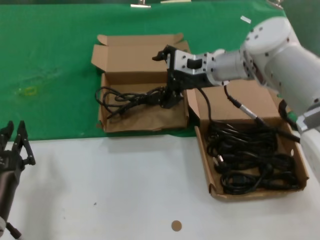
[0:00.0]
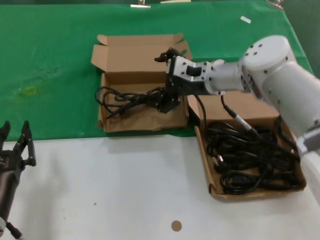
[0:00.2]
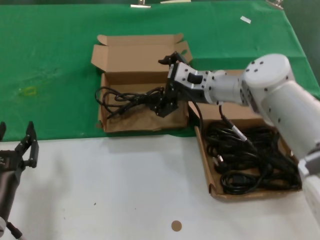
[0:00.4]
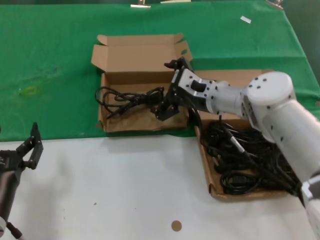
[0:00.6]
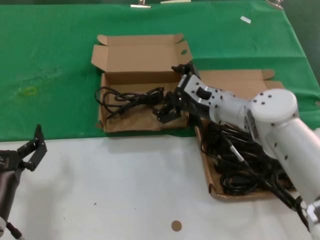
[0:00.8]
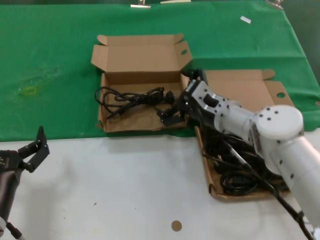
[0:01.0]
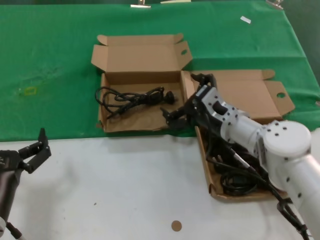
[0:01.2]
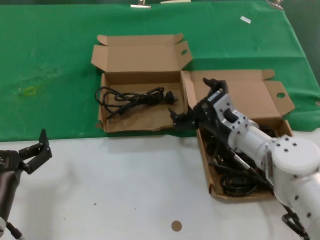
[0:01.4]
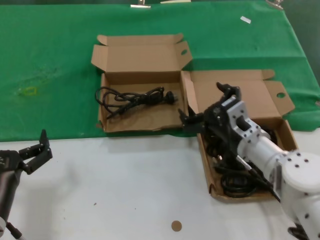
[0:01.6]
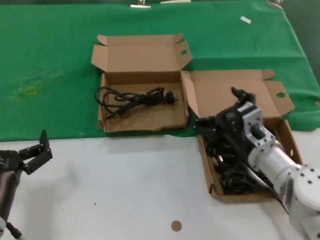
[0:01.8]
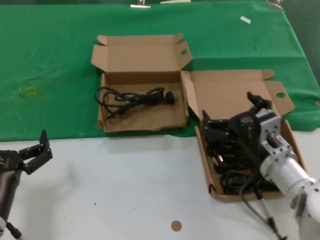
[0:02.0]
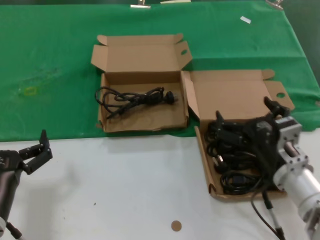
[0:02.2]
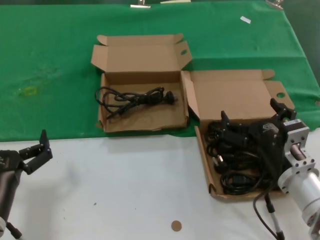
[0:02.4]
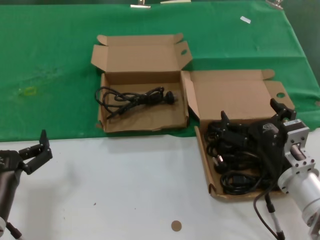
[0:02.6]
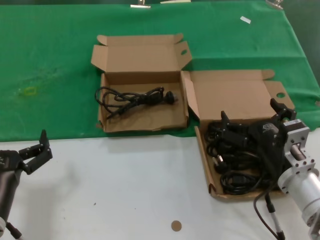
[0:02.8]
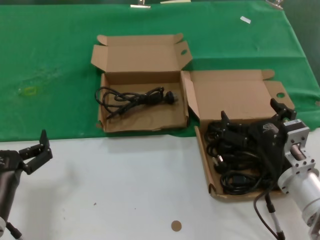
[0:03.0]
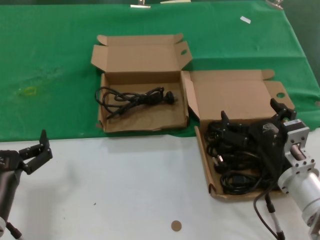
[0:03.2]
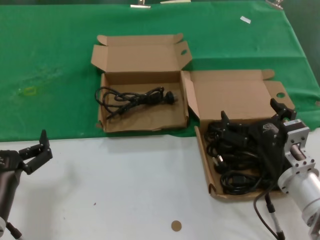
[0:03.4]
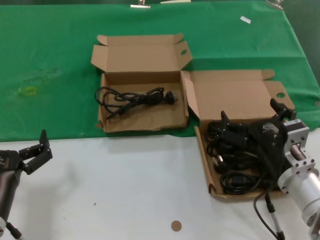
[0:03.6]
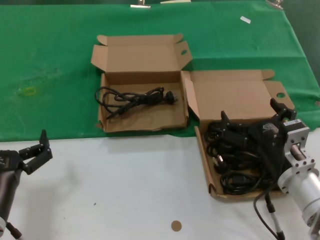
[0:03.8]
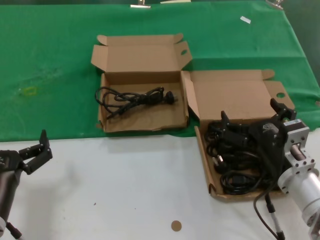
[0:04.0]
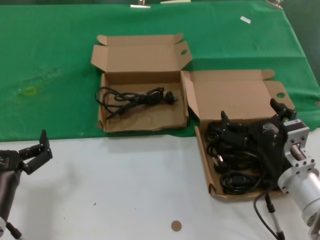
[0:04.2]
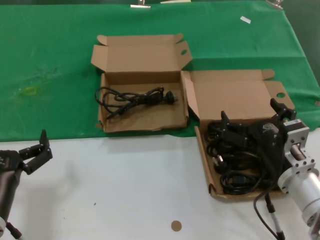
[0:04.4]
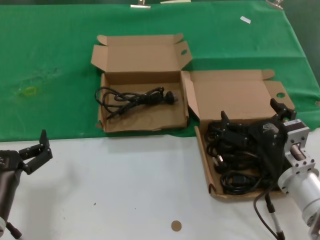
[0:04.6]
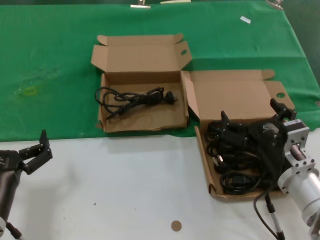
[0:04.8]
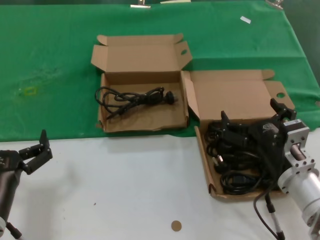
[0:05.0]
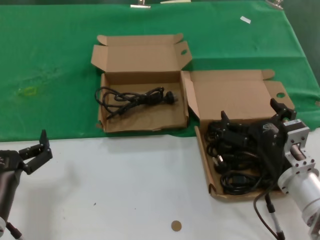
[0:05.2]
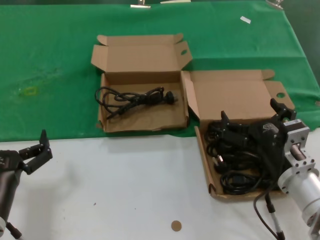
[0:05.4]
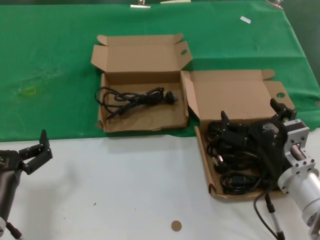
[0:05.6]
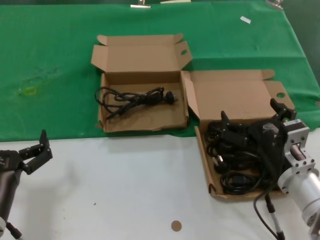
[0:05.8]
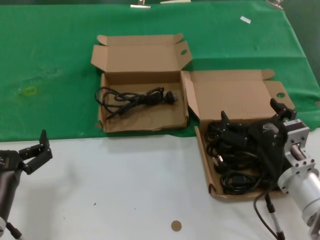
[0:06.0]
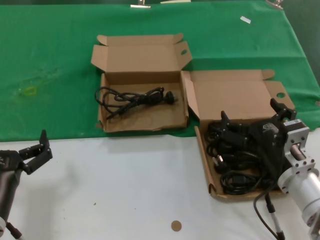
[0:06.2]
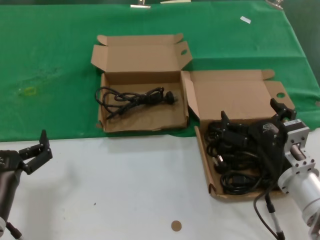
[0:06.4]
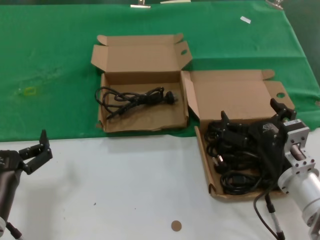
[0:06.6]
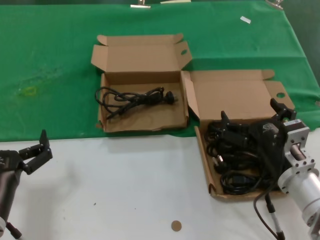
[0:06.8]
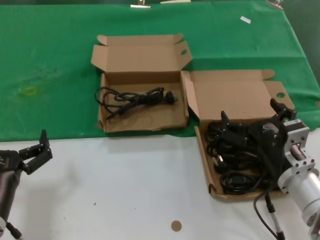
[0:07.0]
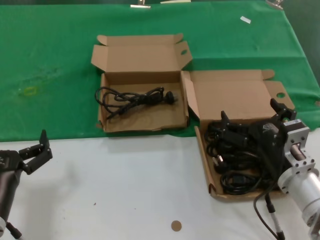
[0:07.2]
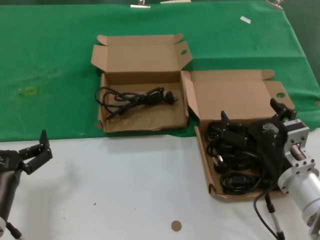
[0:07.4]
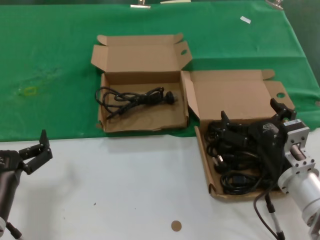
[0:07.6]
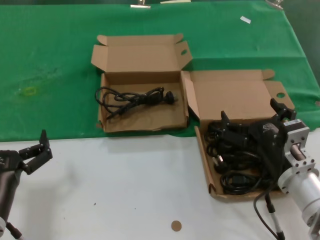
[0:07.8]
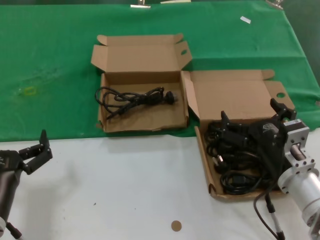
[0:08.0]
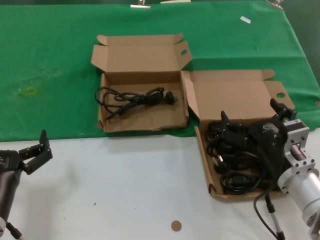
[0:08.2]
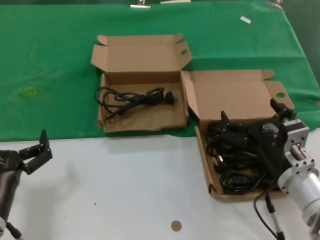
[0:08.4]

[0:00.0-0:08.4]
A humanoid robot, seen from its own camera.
Task of the whole recording: take the parts from the box containing them and put them into an empty box.
0:00.0 to 0:01.4: The right hand shifts roughly 20 cm downward and backward.
0:01.4 to 0:02.8: The right hand is displaced backward by roughly 15 cm.
0:02.8 to 0:08.4: Both hands stay about where they are.

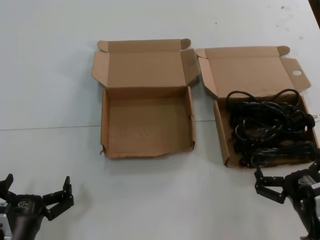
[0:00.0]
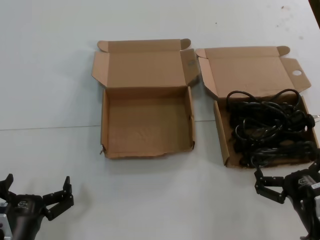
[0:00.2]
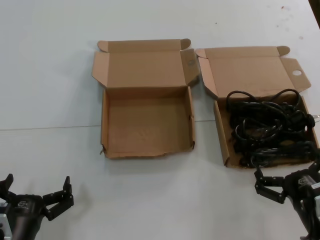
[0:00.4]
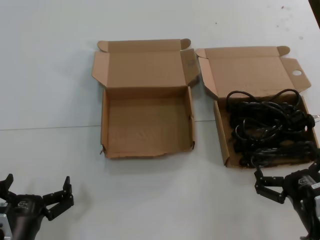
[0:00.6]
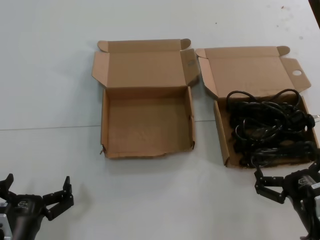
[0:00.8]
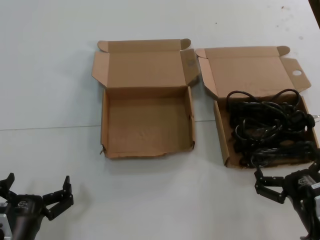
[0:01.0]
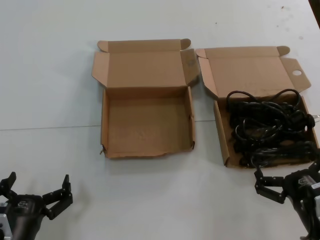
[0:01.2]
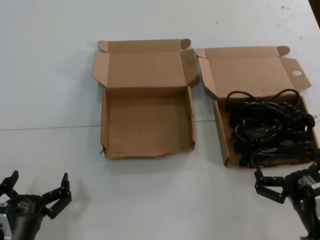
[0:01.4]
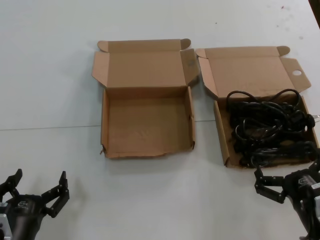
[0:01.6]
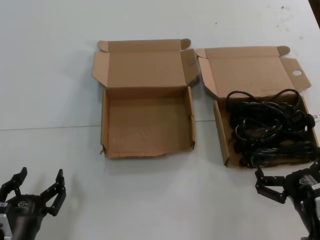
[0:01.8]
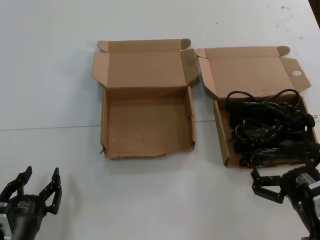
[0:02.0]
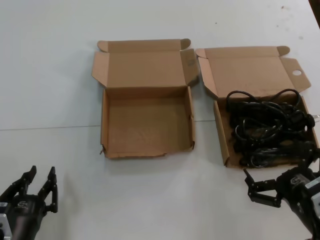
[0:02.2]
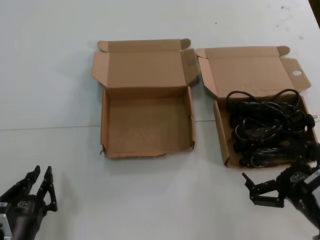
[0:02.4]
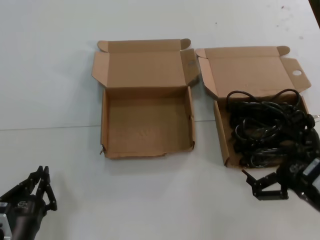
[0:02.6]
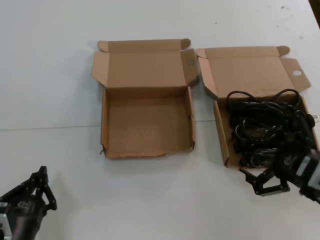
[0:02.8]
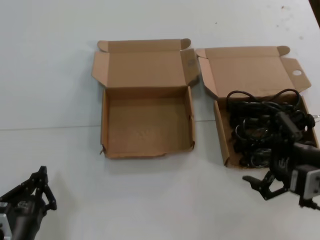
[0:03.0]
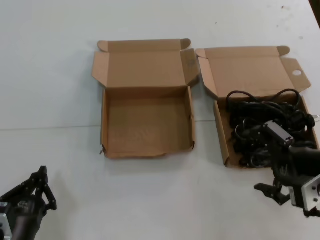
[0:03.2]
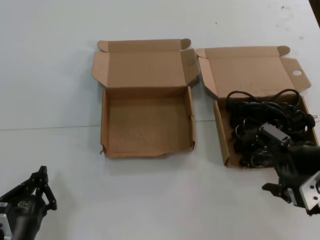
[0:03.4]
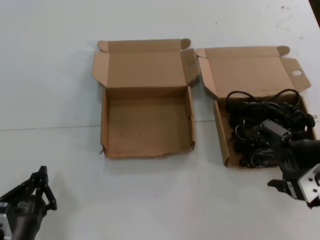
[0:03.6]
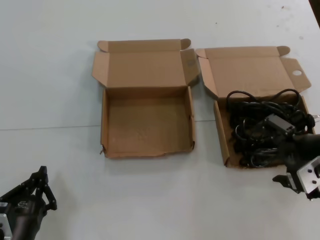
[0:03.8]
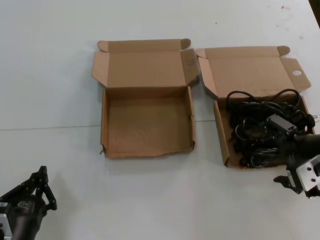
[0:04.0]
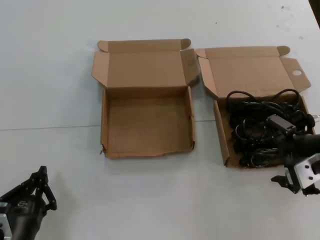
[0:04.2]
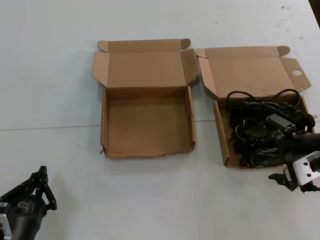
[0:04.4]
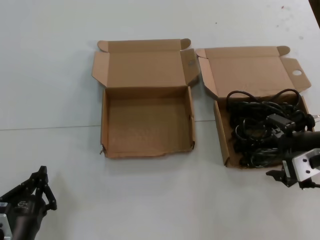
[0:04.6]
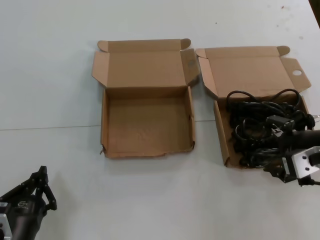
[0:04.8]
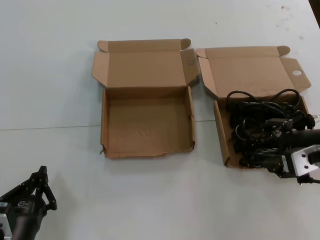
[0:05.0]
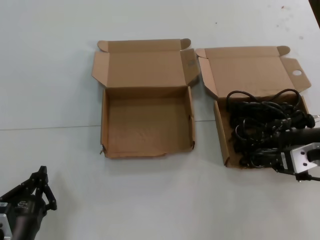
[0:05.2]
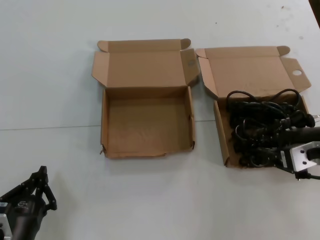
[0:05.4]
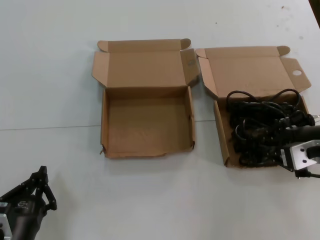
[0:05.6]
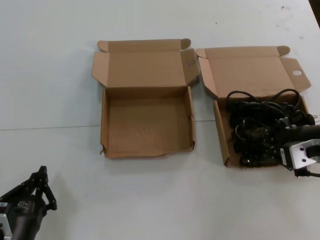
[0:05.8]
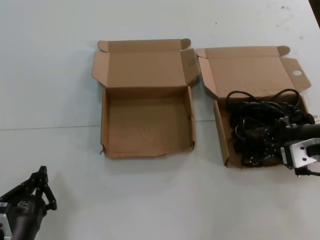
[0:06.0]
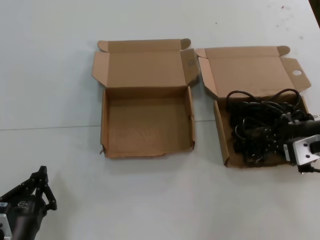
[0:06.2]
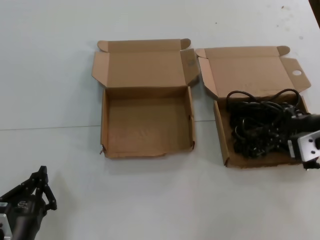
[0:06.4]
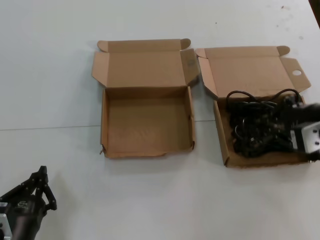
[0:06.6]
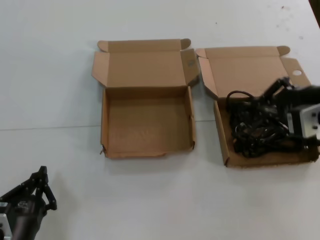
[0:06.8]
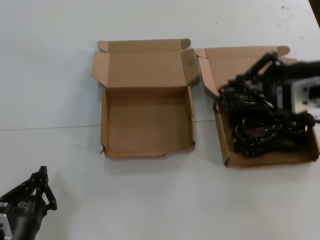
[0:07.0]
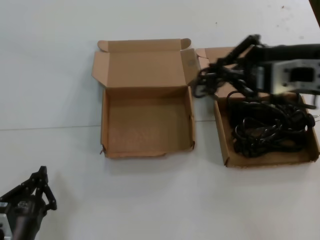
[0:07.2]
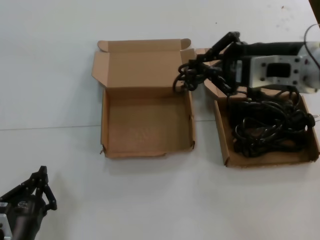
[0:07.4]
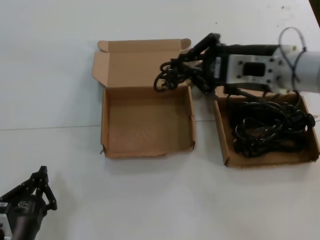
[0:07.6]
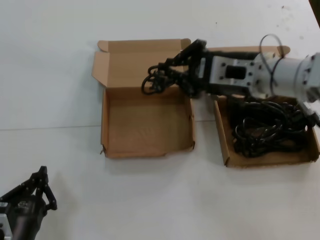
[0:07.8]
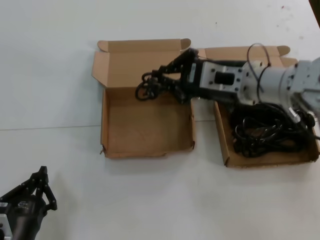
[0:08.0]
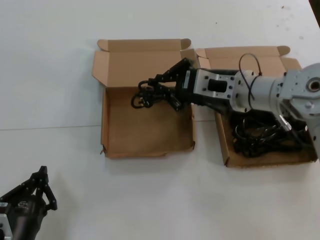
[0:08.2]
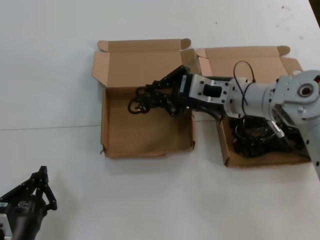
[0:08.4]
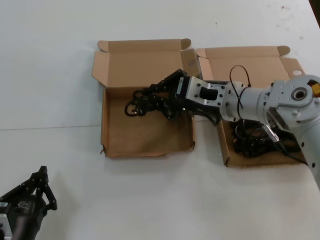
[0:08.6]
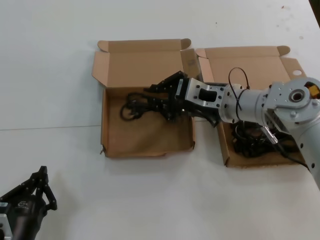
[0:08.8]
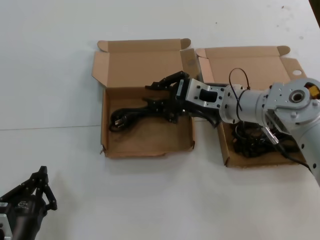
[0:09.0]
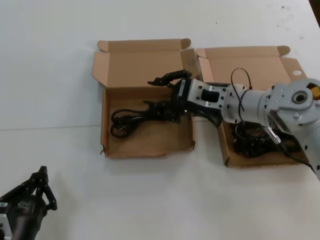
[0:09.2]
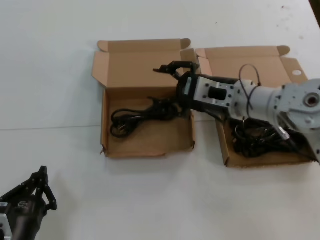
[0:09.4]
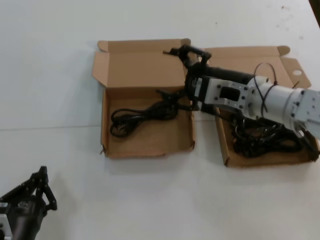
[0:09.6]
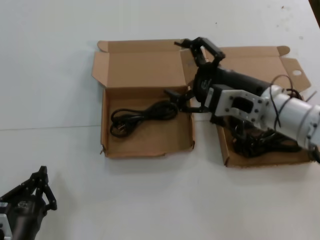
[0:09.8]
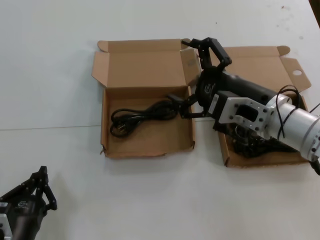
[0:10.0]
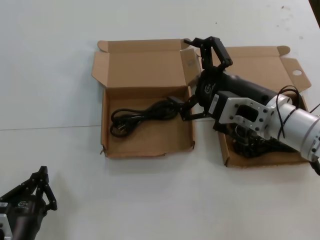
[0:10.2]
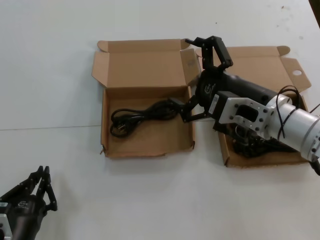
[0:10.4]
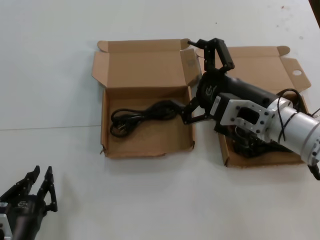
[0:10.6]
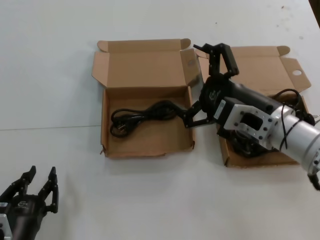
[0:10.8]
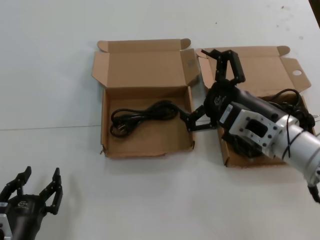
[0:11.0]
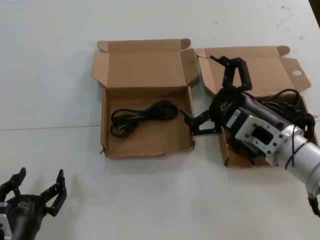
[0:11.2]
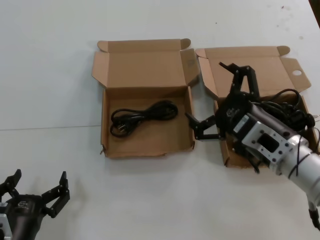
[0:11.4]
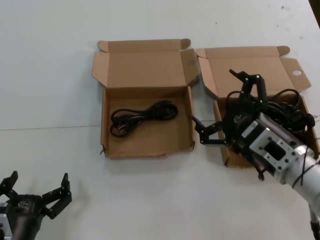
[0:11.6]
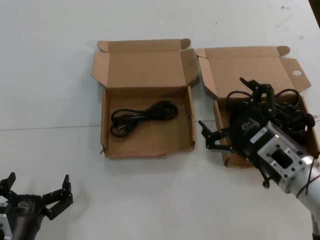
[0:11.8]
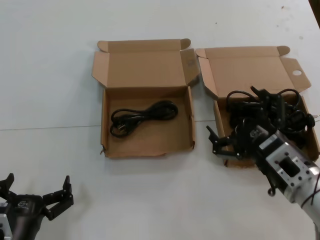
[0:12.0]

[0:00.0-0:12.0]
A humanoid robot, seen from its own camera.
Task of the whole recording: take the parts from the box containing them and put them into an empty box.
Step, 0:00.0 to 0:05.8: Grasp the data cable.
Step, 0:06.0 to 0:08.8: Place the data cable in the another box.
0:00.0 to 0:01.6: Both hands stay about where they are.
0:01.6 to 0:03.0: The right hand moves upward, roughly 15 cm.
0:03.0 to 0:04.4: The right hand shifts some 5 cm forward.
0:04.4 to 0:06.0: The hands move only a little.
0:06.0 to 0:07.6: The right hand shifts roughly 15 cm to the left and upward.
0:07.6 to 0:09.0: The right hand goes roughly 15 cm downward, forward and to the left.
0:09.0 to 0:10.4: The right hand is displaced backward by some 10 cm.
0:10.4 to 0:12.0: The right hand goes about 15 cm downward and backward.

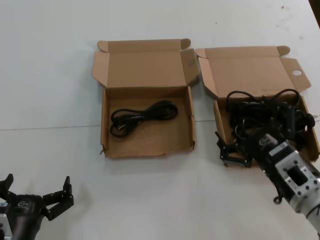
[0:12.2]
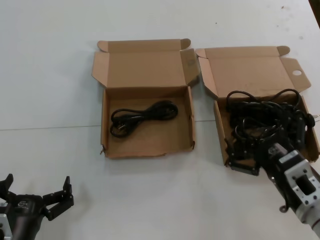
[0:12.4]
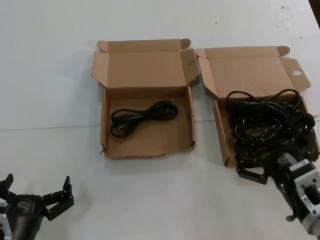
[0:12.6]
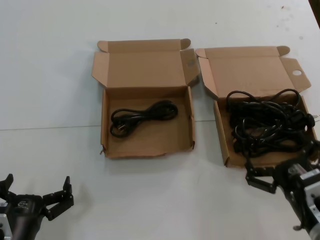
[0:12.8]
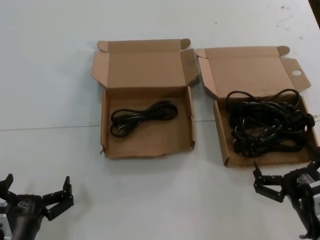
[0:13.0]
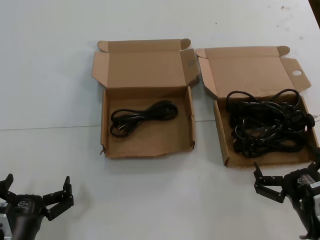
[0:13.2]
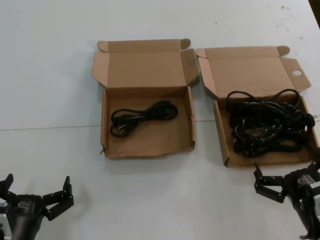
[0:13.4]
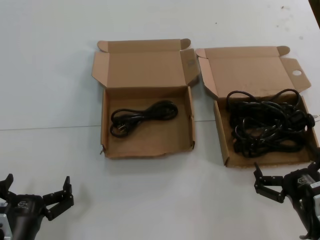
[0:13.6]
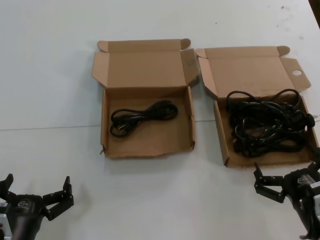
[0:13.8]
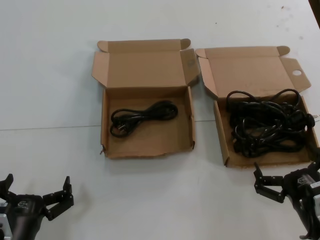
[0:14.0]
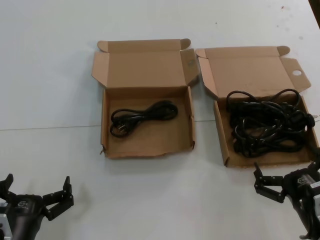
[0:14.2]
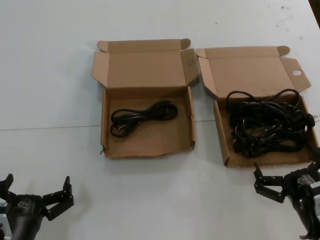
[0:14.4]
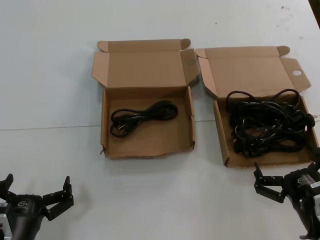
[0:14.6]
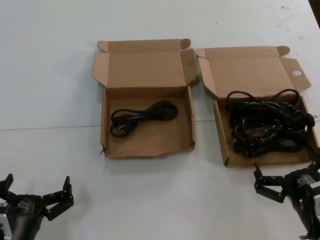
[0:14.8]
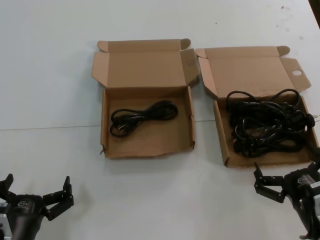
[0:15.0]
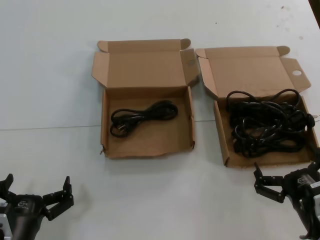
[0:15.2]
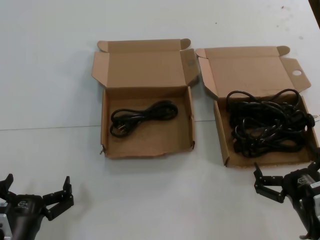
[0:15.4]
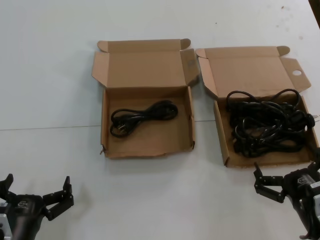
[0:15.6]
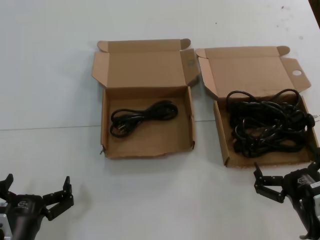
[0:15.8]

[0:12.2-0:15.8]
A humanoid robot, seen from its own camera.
Task of the whole recording: take the parts from the box containing them and put them into an empty box.
0:12.2 to 0:14.0: The right hand travels downward and backward by about 10 cm.
0:14.0 to 0:15.8: Neither hand changes place.
